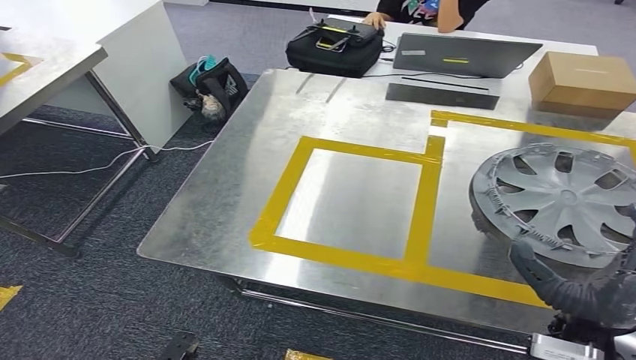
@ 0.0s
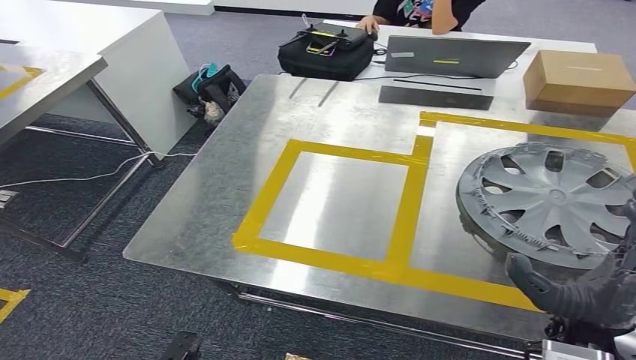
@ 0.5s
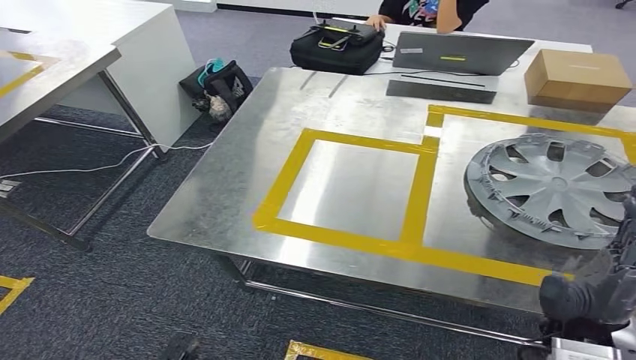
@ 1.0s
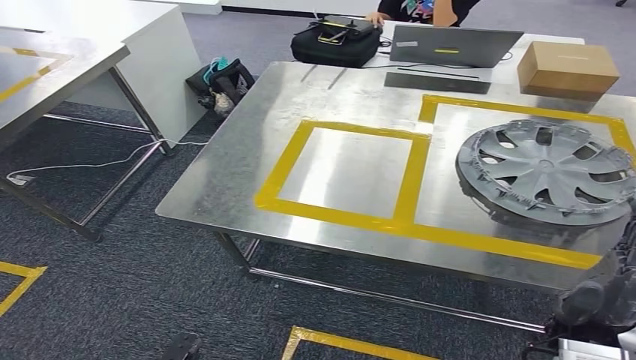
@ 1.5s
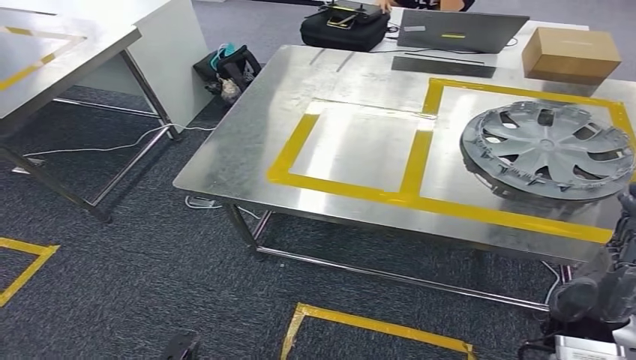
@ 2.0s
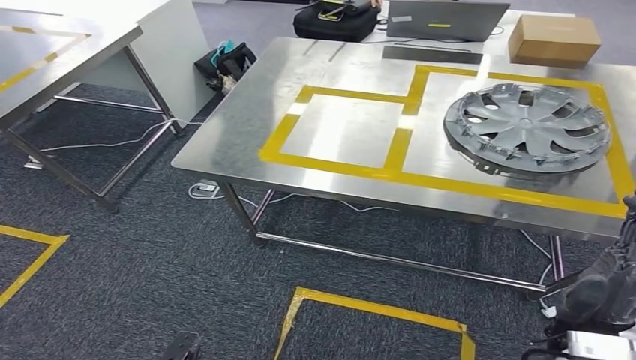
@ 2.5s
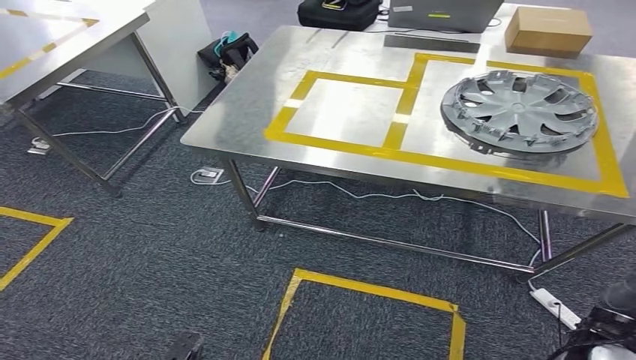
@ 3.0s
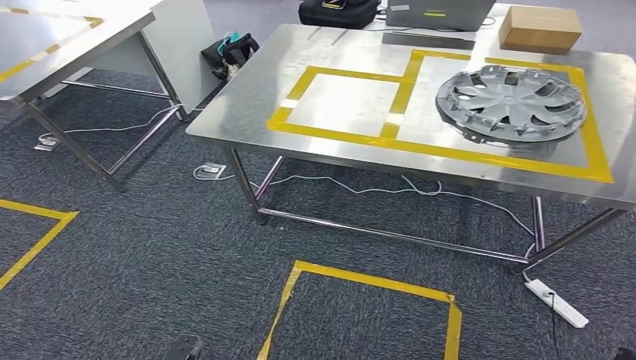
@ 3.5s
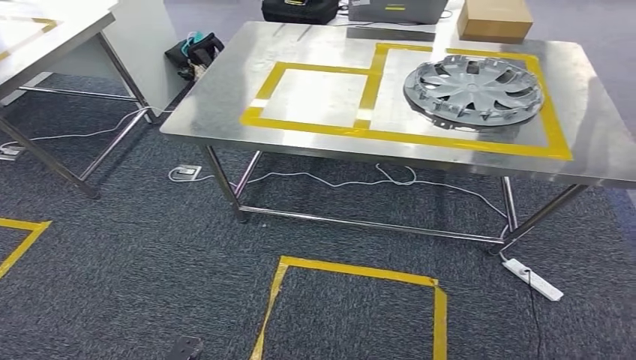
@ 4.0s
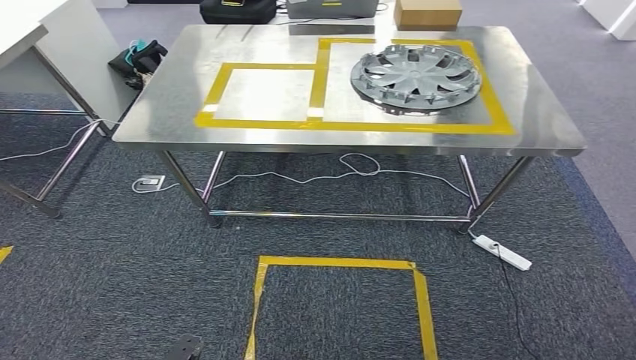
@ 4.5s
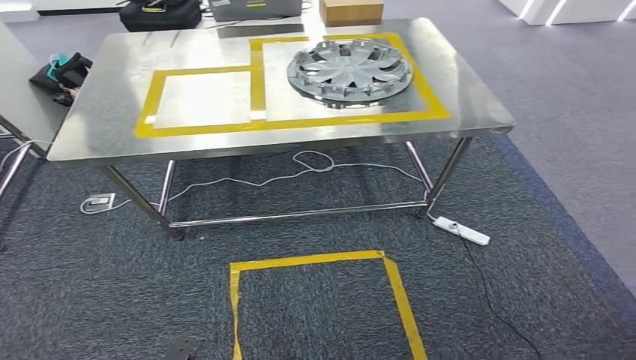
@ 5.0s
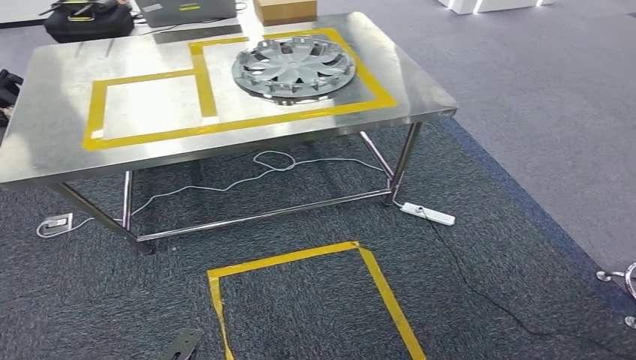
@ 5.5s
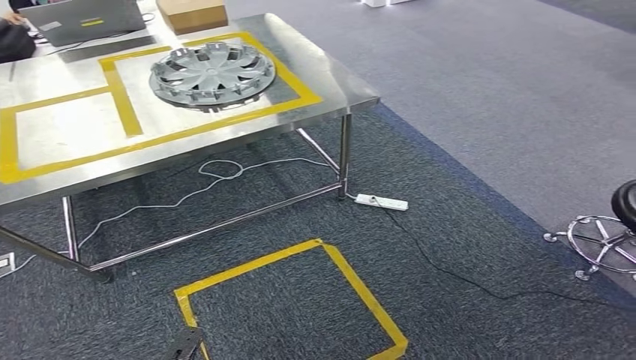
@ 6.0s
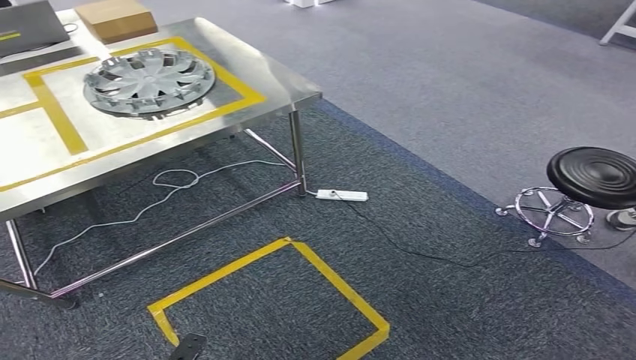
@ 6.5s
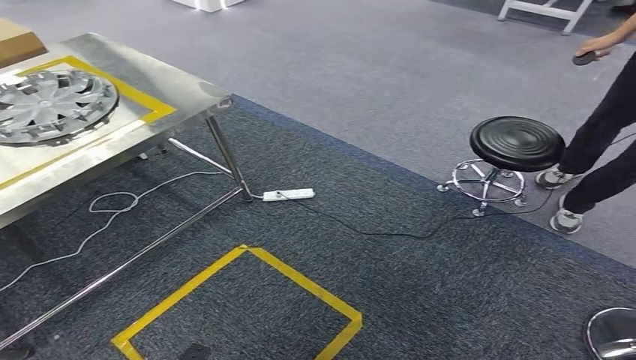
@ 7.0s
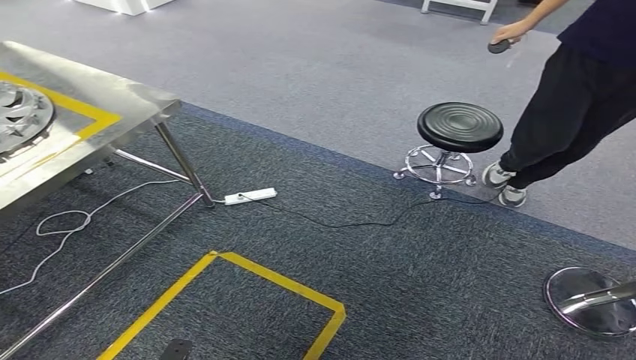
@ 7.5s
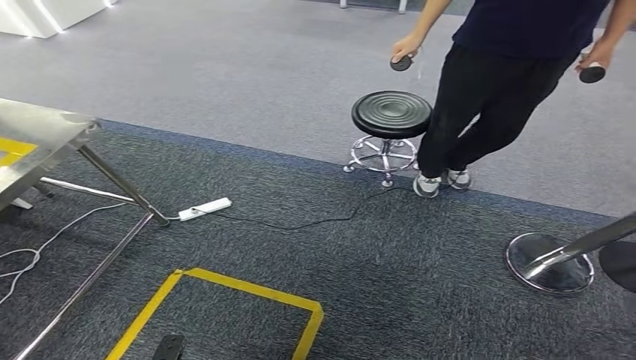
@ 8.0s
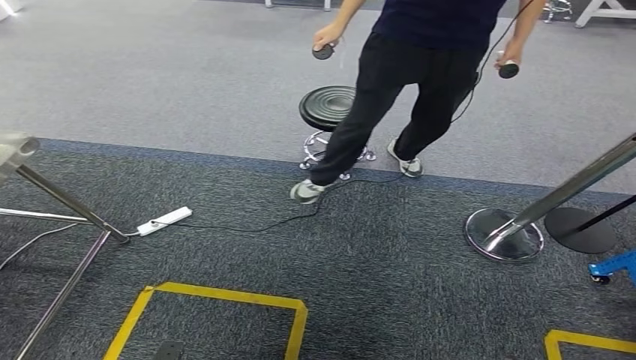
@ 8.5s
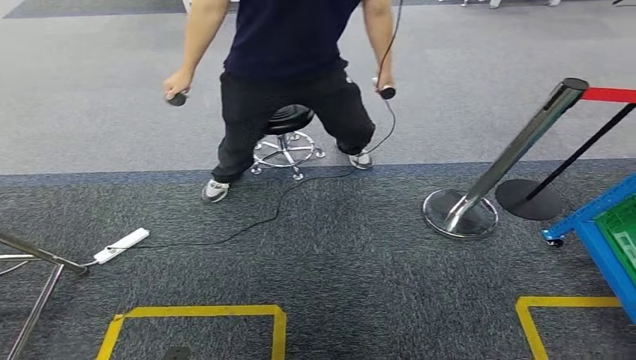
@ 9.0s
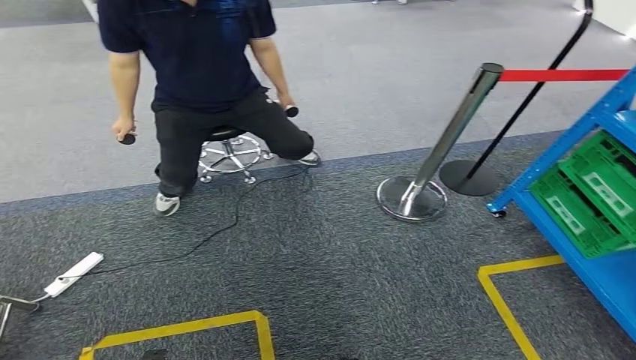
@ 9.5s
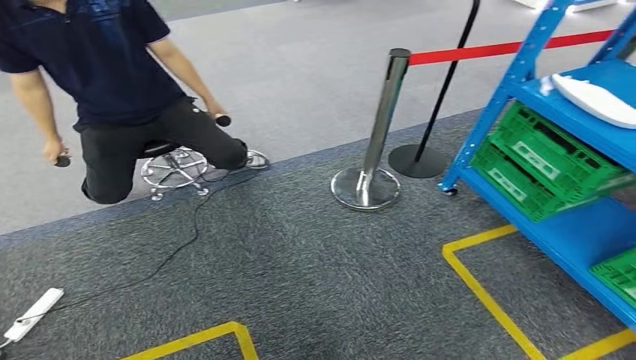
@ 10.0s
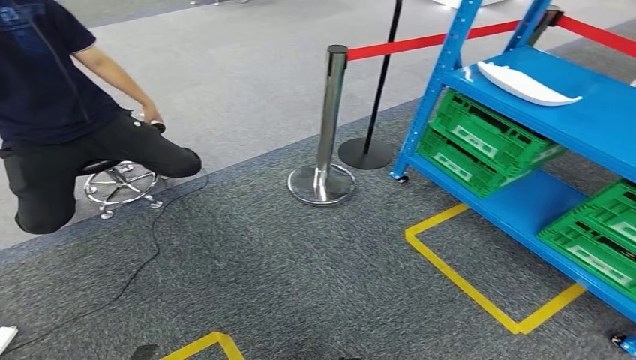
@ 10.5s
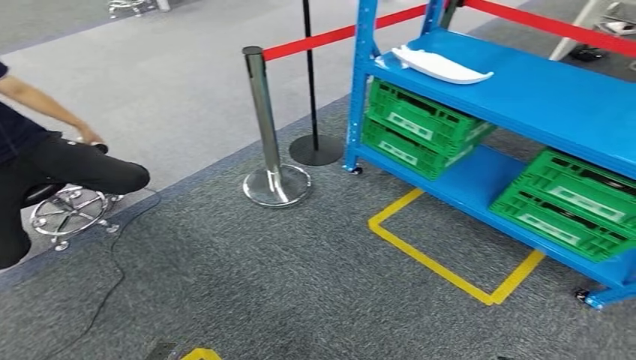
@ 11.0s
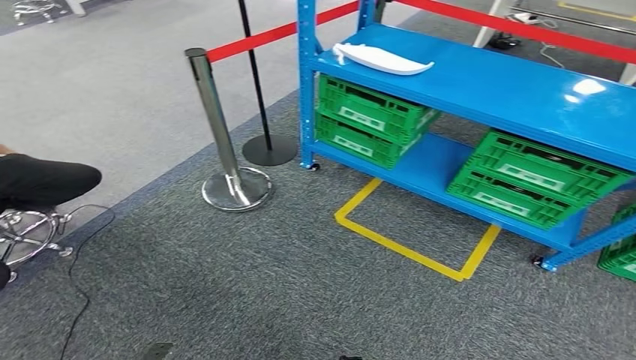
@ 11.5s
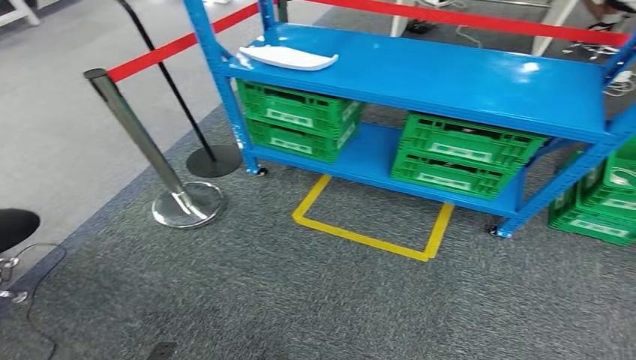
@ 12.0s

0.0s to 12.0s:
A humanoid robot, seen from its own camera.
Step, 0.0s to 2.0s: Insert the small parts into the corresponding slots on the workbench.
Step, 3.0s to 12.0s: Return to the initial position at the workbench.
